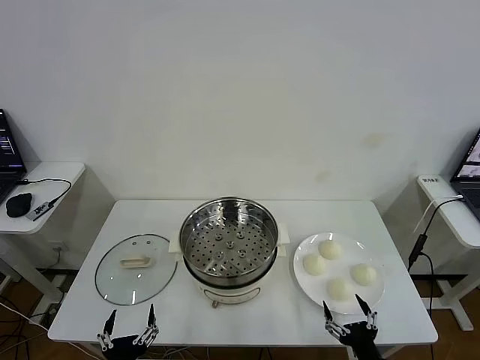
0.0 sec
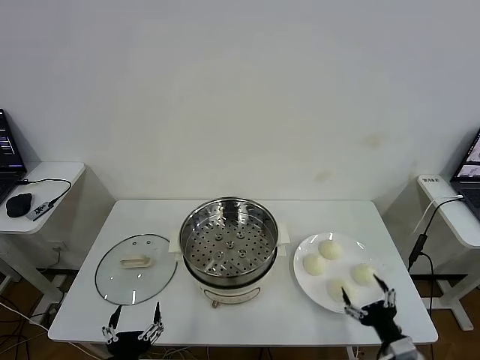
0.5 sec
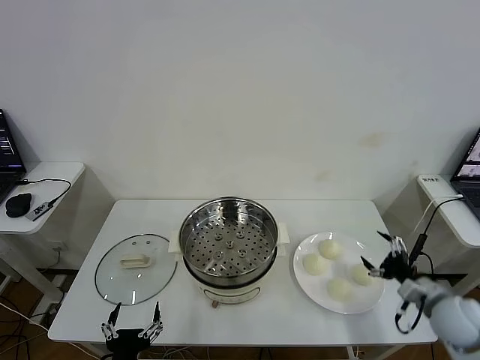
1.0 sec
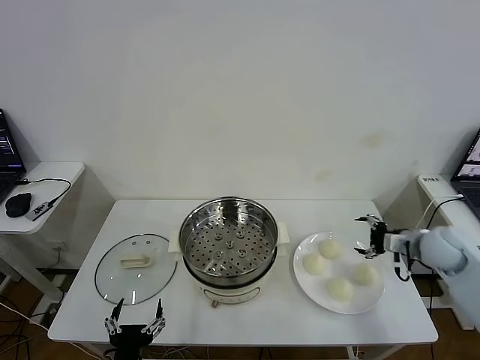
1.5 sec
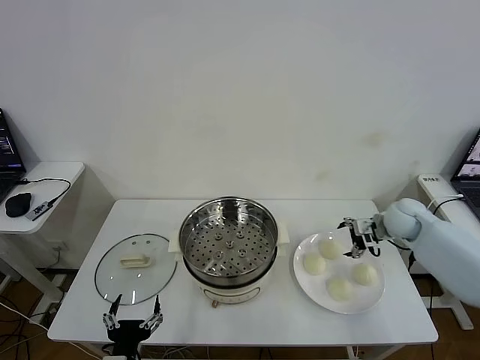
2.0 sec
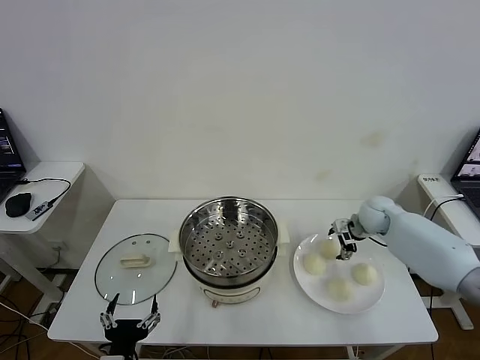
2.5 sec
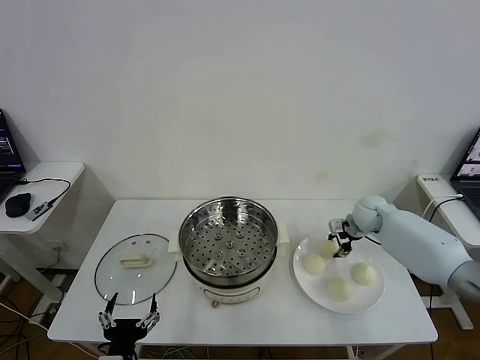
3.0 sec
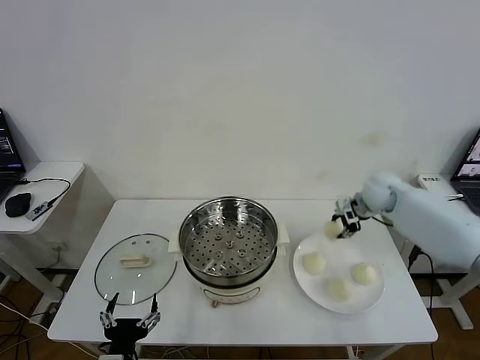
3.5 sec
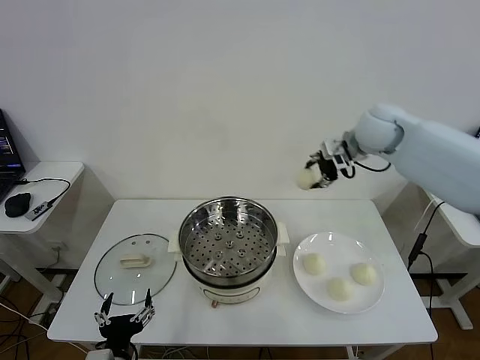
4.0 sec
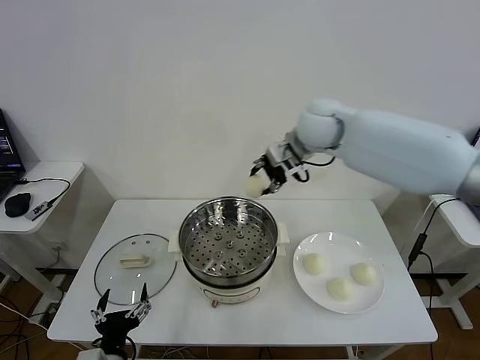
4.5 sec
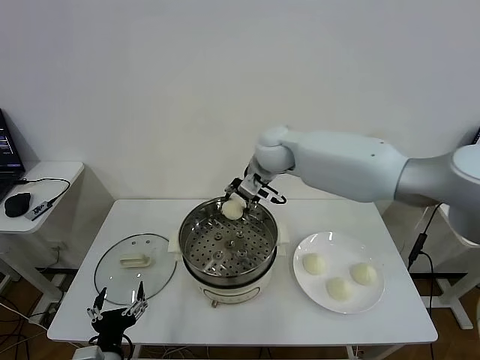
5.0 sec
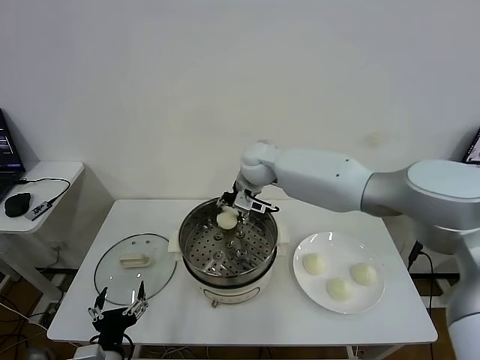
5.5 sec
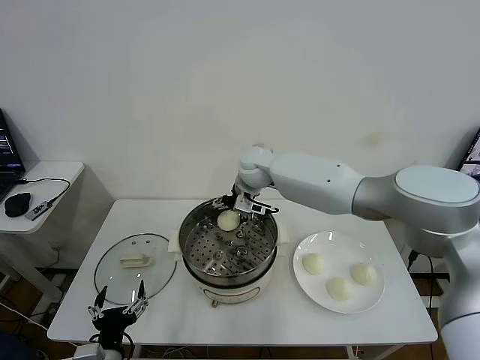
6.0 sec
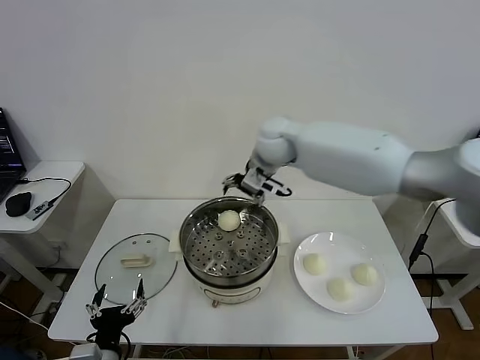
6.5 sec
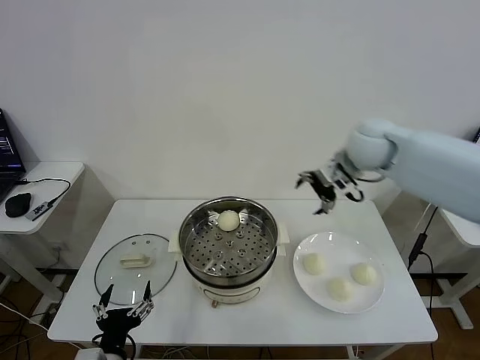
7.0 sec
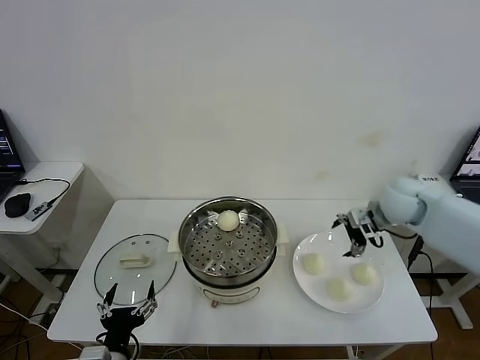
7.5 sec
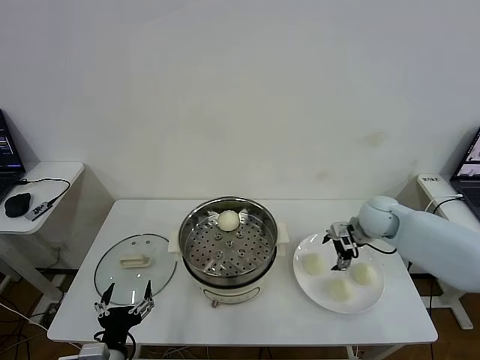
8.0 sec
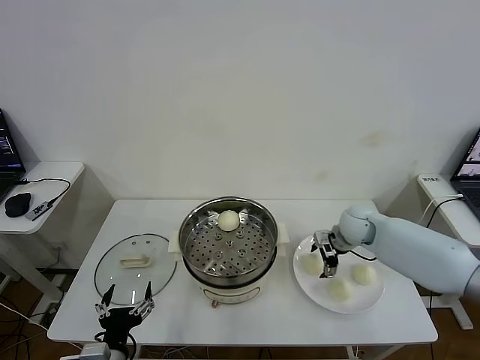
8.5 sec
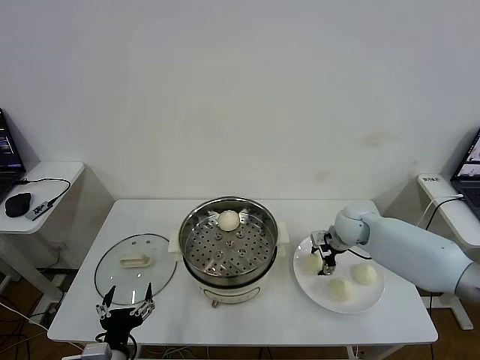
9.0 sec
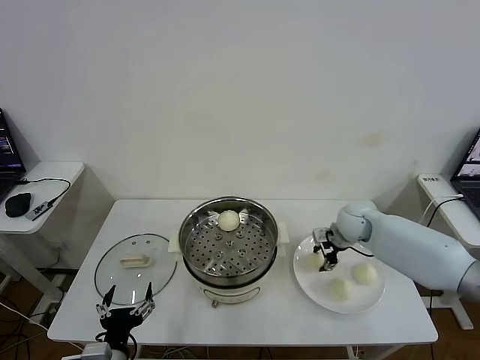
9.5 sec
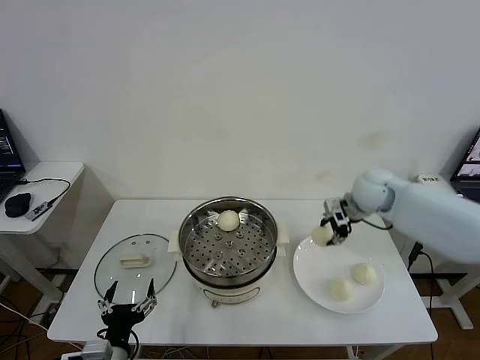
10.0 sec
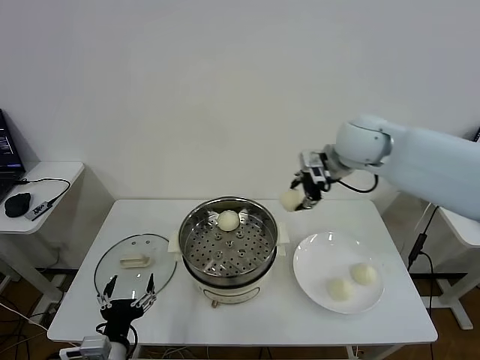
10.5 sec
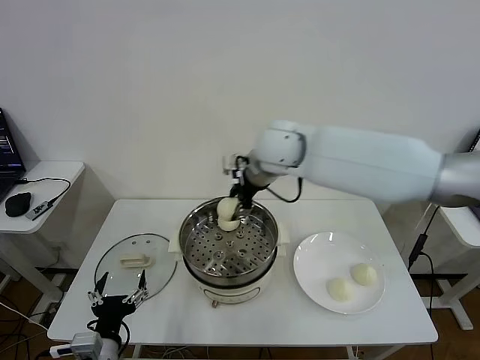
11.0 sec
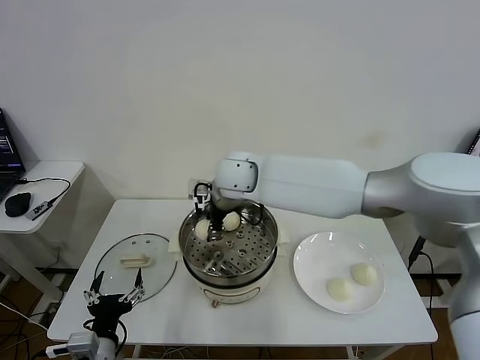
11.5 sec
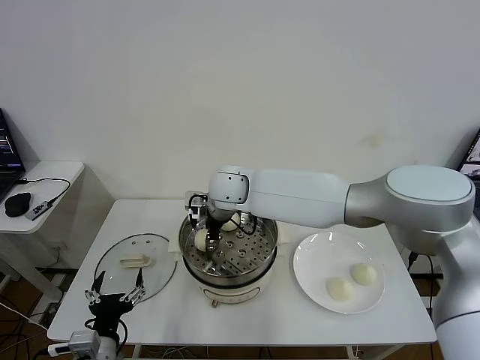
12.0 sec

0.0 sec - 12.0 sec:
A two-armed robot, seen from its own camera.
Task of the whole recording: take steamed baozi put them in steamer then cover it.
Step, 0.0 sec - 3.0 sec: Grasp the baozi in the plate with right gripper.
Step, 3.5 sec - 5.5 sec: Place the baozi on the steamer with right gripper.
Step, 6.0 sec - 9.5 sec: Grasp the baozi in the plate with right gripper.
2.0 sec - 4.0 sec: The right gripper moves upward and to the left, roughly 30 cm, and closes up.
4.0 sec - 6.0 sec: The right gripper travels to the left and downward by roughly 25 cm, and opens its fingers.
6.0 sec - 8.0 sec: The right gripper shifts some 30 cm to the right.
8.0 sec - 10.0 sec: The right gripper is displaced upward by about 10 cm, and closes.
10.0 sec - 12.0 sec: The right gripper goes roughly 30 cm to the left, and opens its fingers.

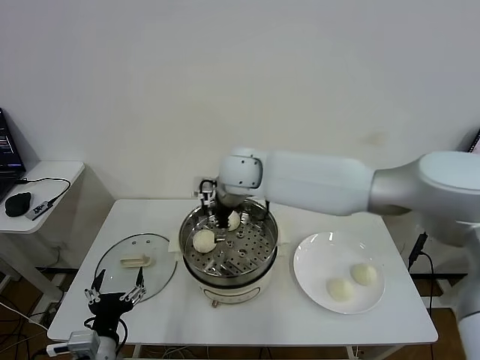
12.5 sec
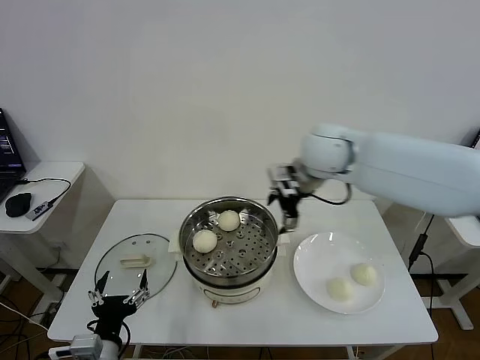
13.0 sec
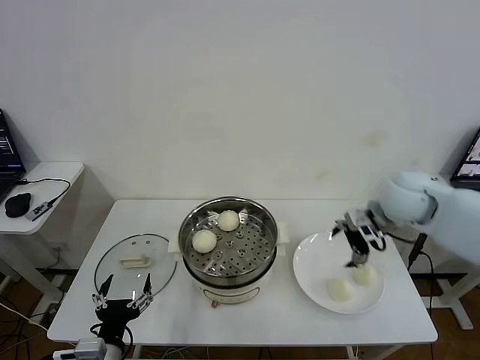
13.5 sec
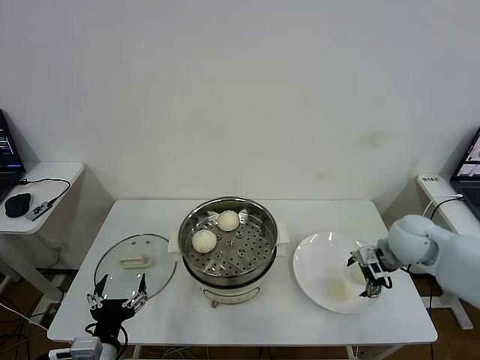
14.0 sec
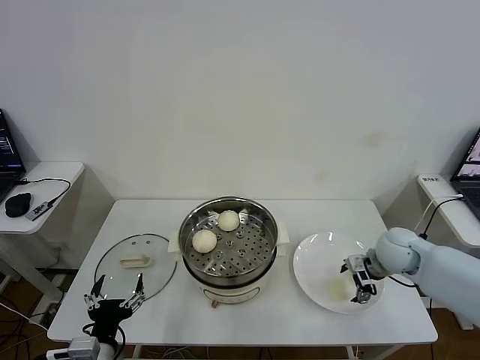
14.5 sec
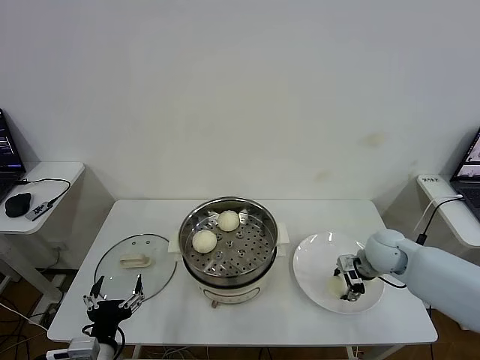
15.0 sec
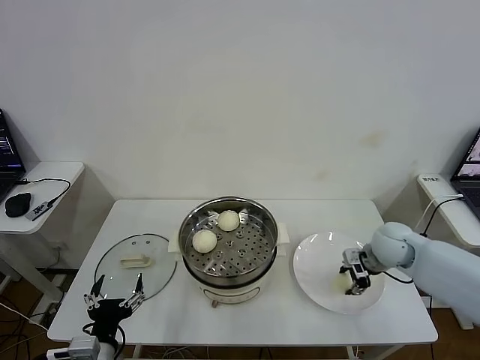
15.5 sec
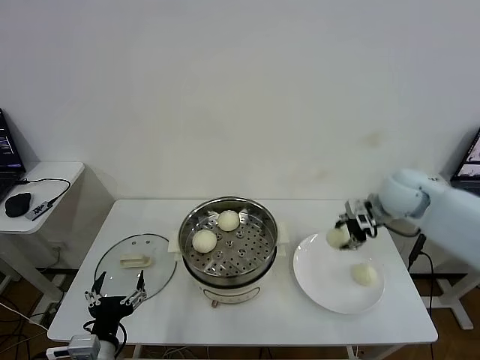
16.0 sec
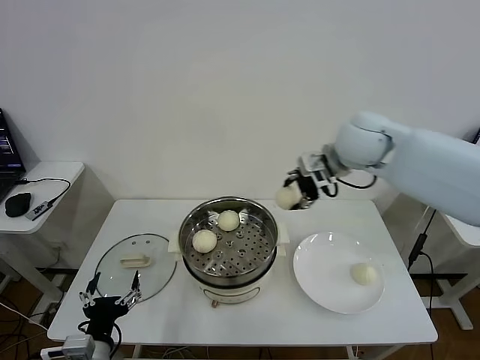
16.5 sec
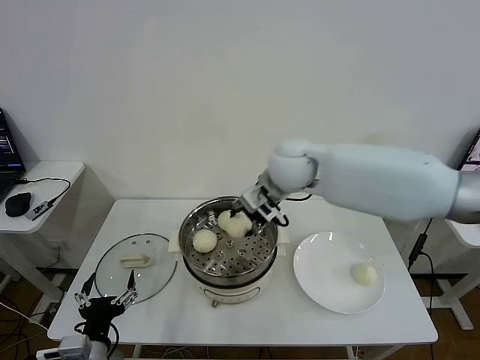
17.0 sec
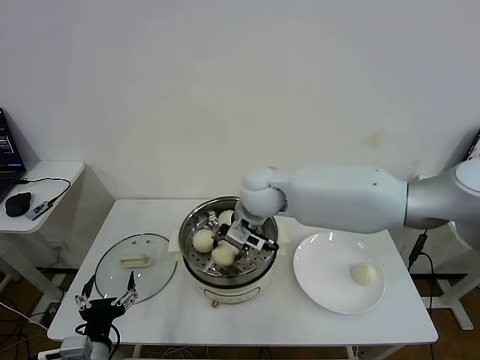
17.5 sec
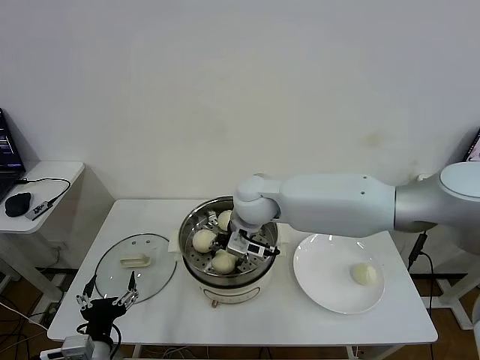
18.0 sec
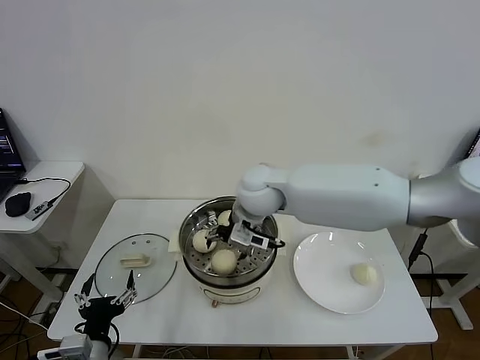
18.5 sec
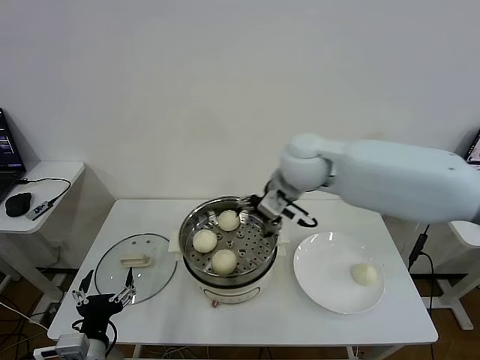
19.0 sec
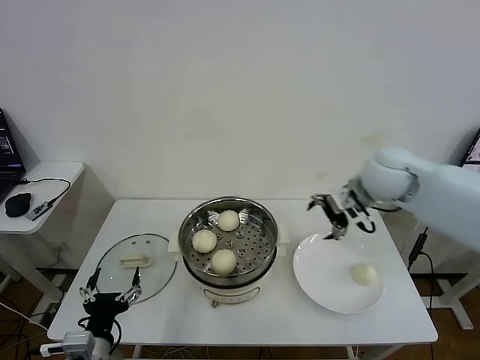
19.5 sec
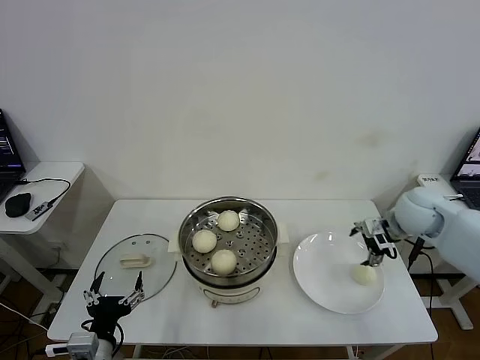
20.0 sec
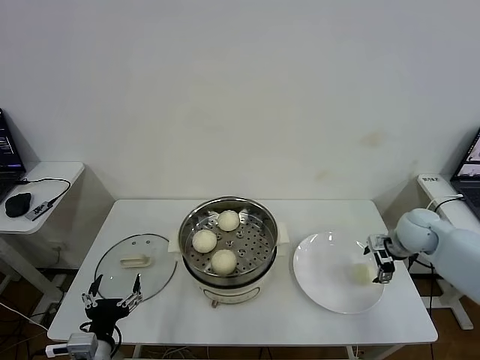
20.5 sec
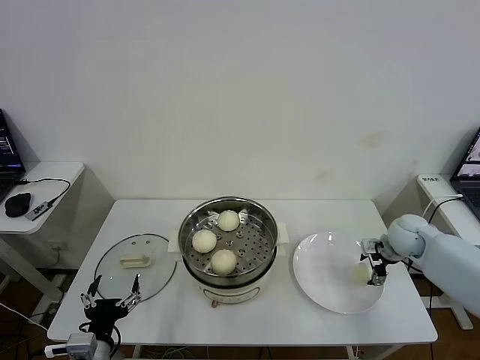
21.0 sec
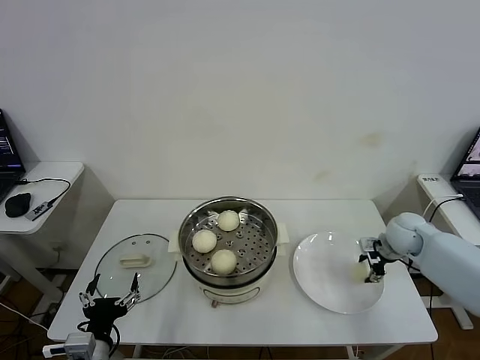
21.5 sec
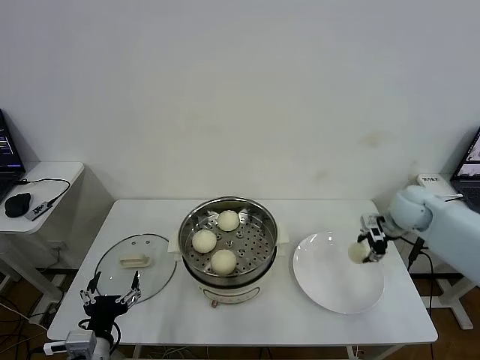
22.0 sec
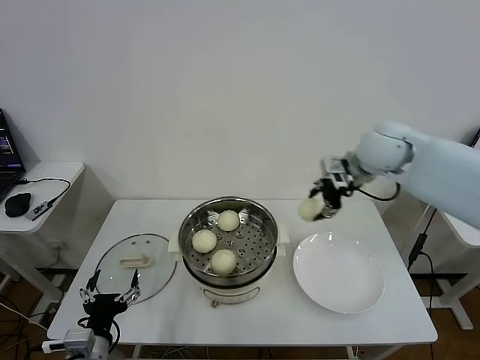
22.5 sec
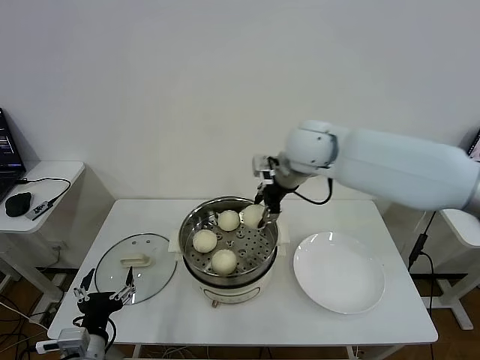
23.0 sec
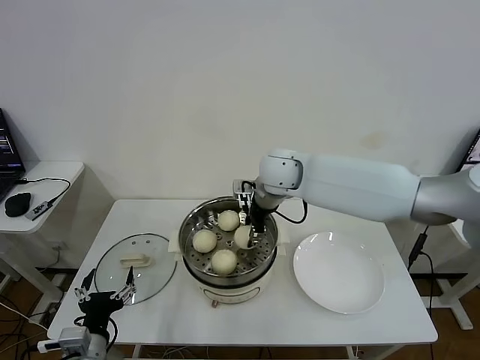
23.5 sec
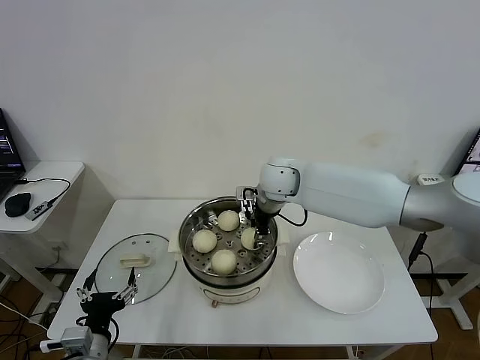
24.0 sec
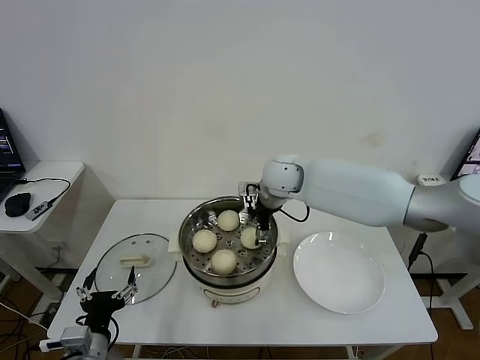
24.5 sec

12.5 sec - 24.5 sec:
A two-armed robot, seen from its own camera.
Task of the whole recording: take steamed baozi put them in steamer then cover it.
Step, 12.5 sec - 15.0 sec: Grasp the baozi in the plate with right gripper.
Step, 15.5 sec - 18.0 sec: Place the baozi on the steamer with right gripper.
Step, 18.5 sec - 21.5 sec: Grasp the baozi in the plate with right gripper.
Step, 22.0 sec - 24.0 sec: Place the baozi on the steamer with right gripper.
12.5 sec - 14.5 sec: The right gripper travels to the right and downward by about 40 cm.
14.5 sec - 16.5 sec: The right gripper travels upward and to the left by approximately 30 cm, and closes.
16.5 sec - 18.5 sec: The right gripper moves to the left and downward, some 20 cm, and opens.
18.5 sec - 20.5 sec: The right gripper goes approximately 35 cm to the right.
20.5 sec - 22.5 sec: The right gripper travels upward and to the left by approximately 25 cm, and closes its fingers.
22.5 sec - 24.5 sec: The right gripper heads to the left and downward, covering approximately 20 cm, and opens.

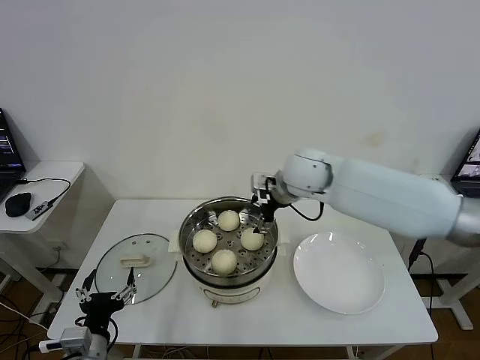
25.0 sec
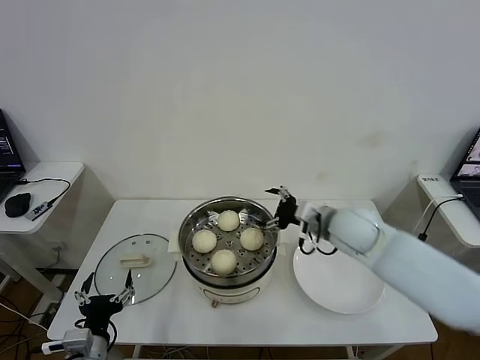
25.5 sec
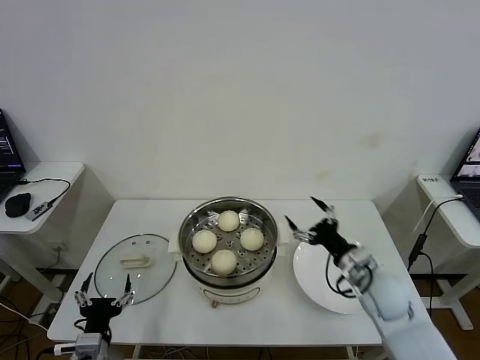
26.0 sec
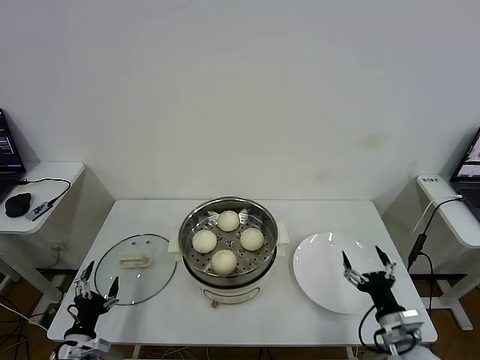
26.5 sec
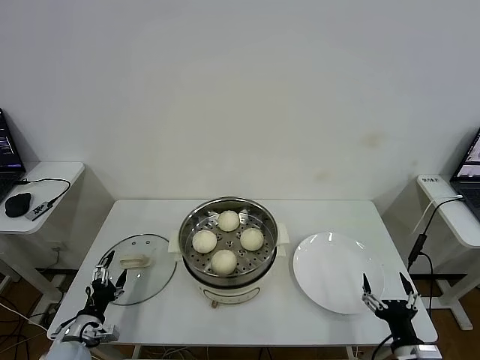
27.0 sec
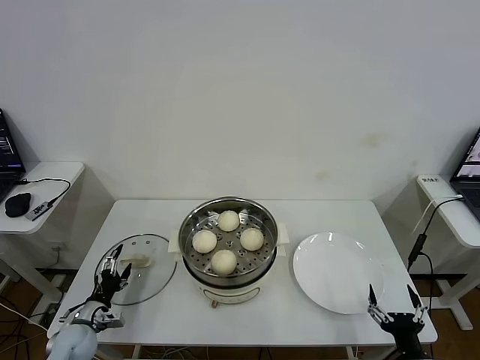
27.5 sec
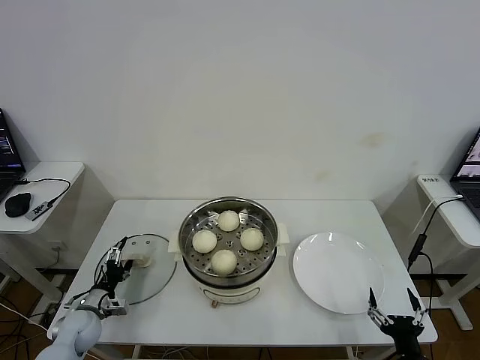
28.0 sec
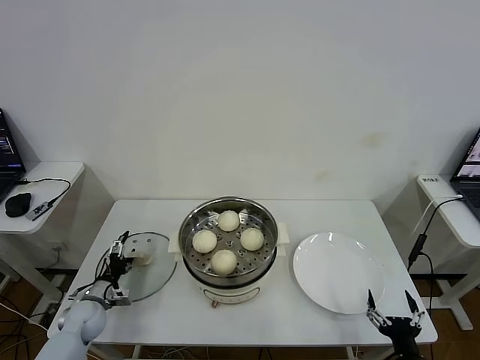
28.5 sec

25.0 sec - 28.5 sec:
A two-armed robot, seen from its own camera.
Task of the whole recording: take steamed baozi put them in steamer then cover it.
25.0 sec - 27.0 sec: The left gripper moves downward, to the left and forward, roughly 15 cm, while the right gripper heads backward, downward and to the right, covering some 50 cm.
27.0 sec - 28.5 sec: The left gripper shifts some 10 cm forward.
